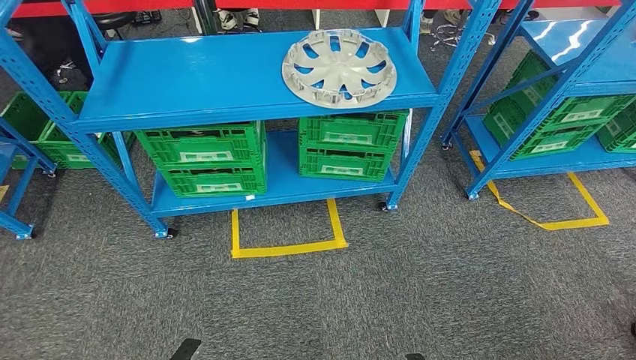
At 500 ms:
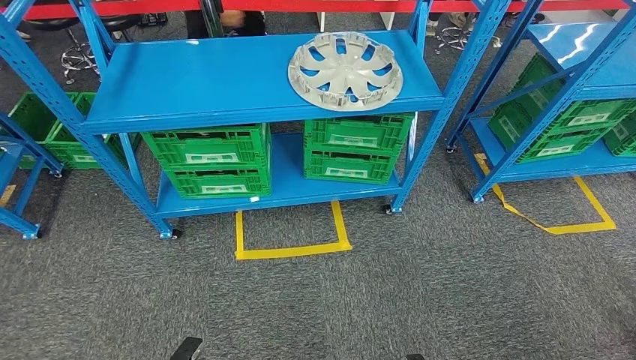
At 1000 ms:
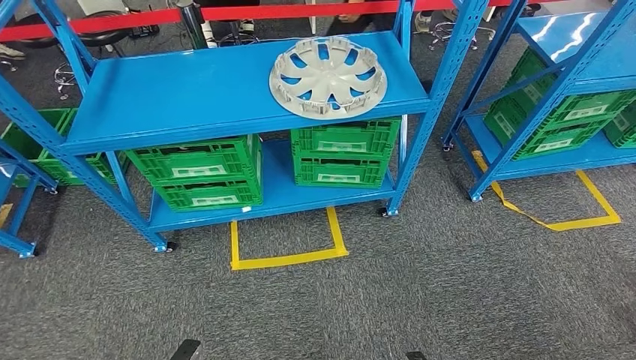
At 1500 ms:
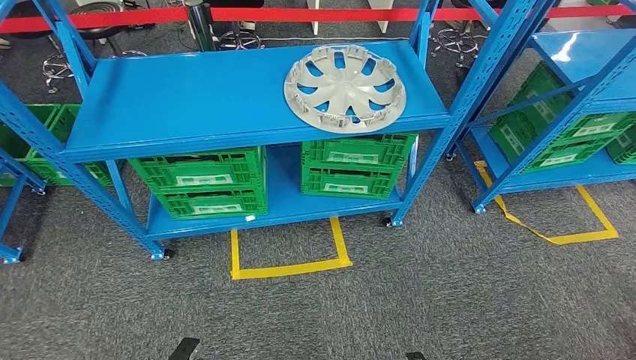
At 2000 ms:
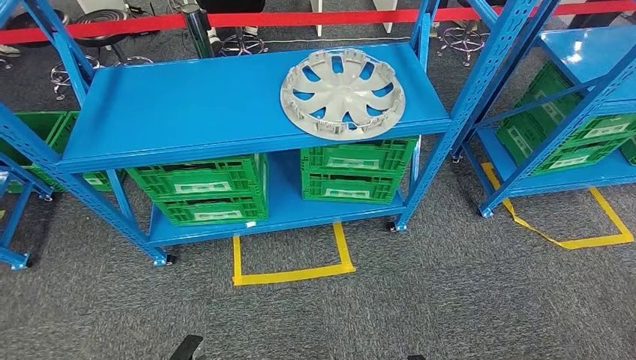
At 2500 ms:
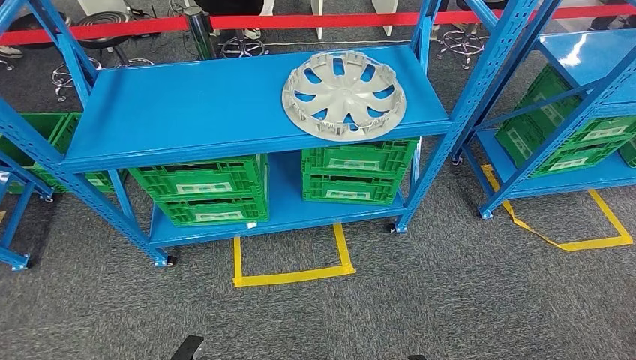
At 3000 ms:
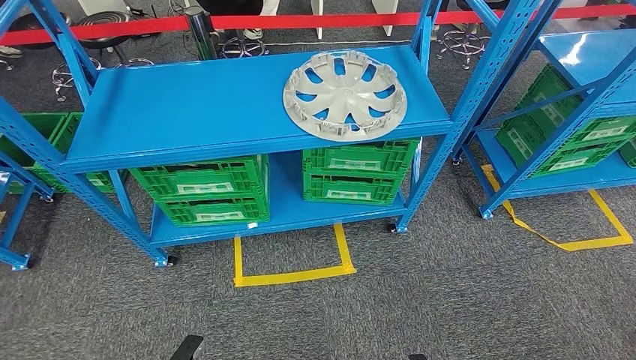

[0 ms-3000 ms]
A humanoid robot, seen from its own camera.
Step, 0 ms to 3000 ms: Move to the initial position at the workbench.
